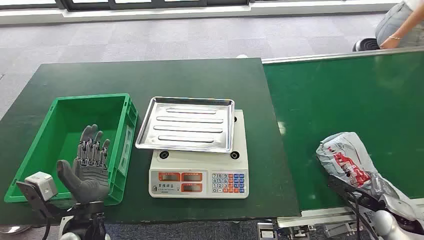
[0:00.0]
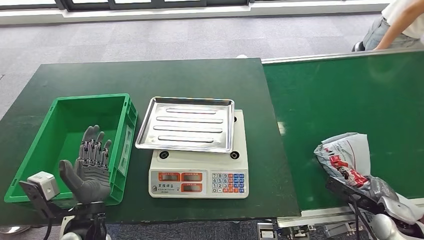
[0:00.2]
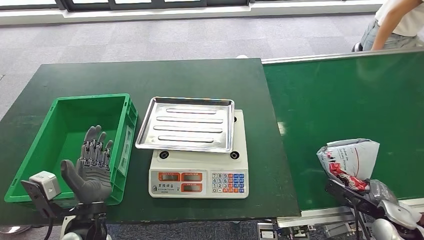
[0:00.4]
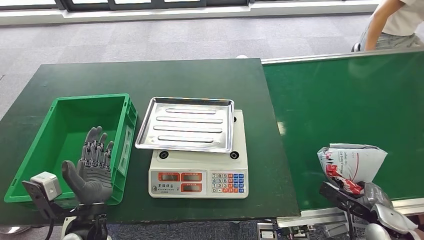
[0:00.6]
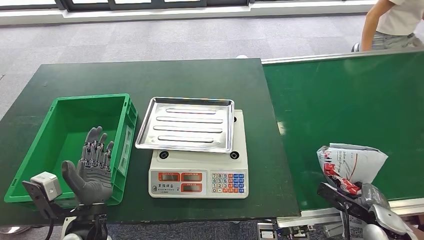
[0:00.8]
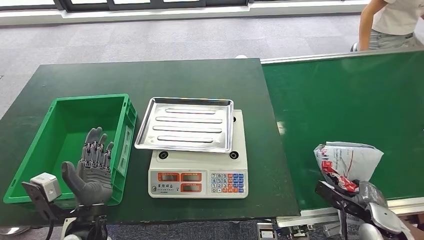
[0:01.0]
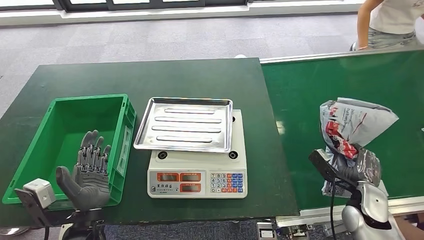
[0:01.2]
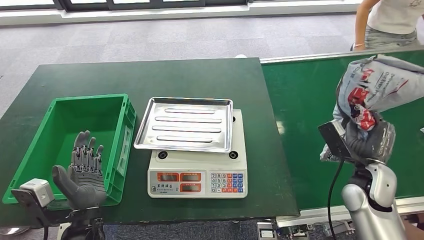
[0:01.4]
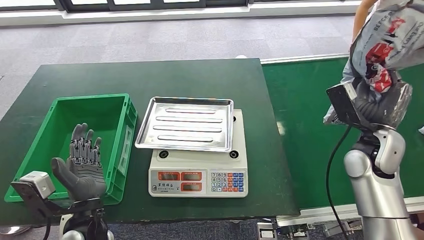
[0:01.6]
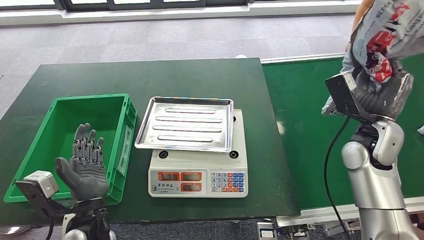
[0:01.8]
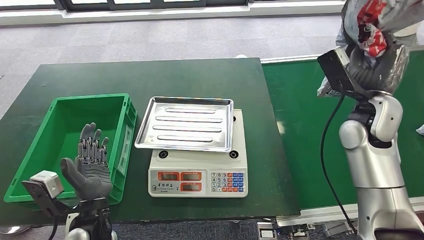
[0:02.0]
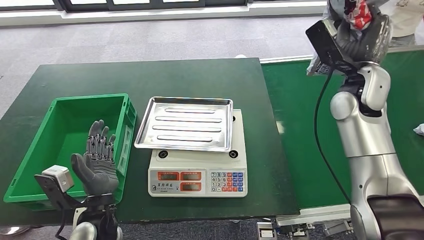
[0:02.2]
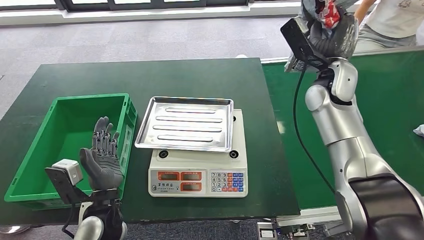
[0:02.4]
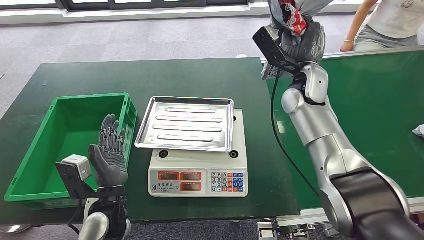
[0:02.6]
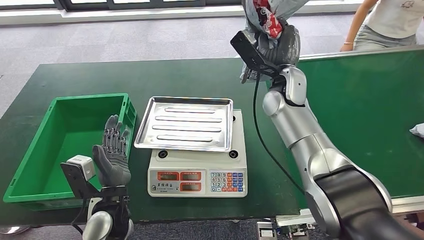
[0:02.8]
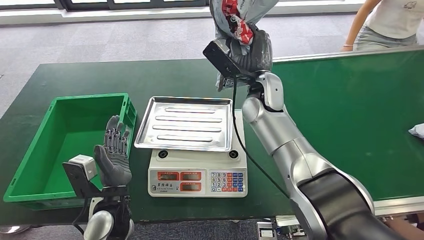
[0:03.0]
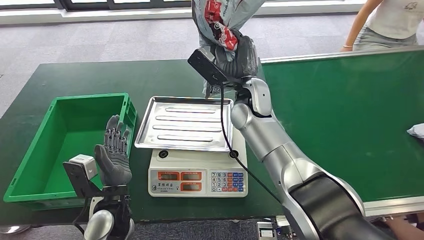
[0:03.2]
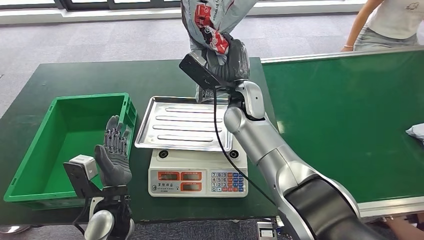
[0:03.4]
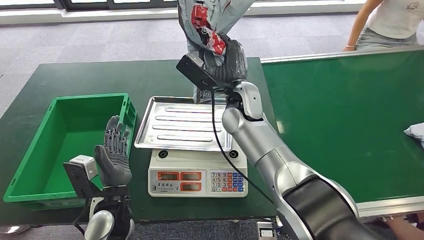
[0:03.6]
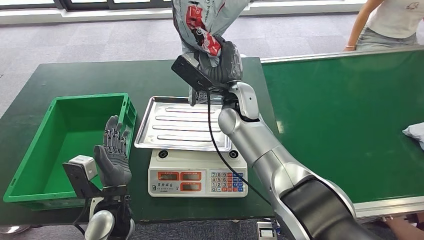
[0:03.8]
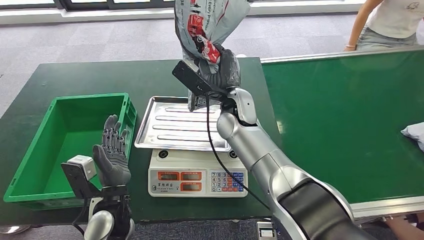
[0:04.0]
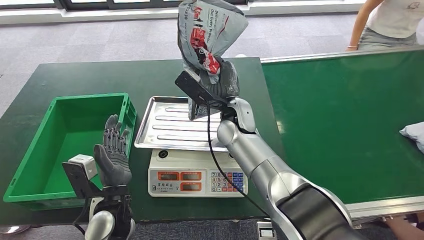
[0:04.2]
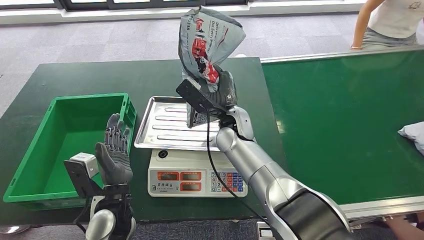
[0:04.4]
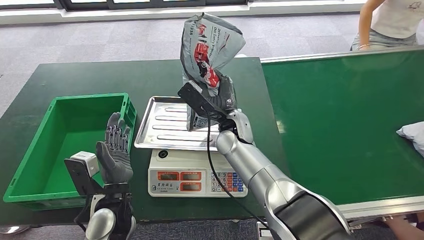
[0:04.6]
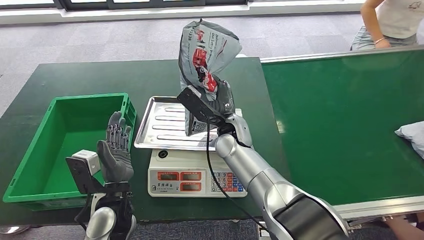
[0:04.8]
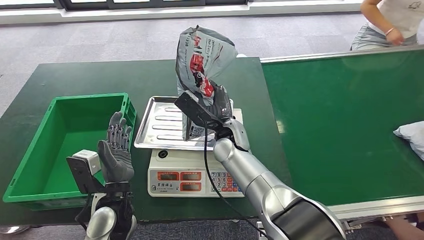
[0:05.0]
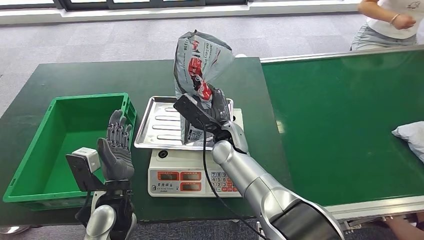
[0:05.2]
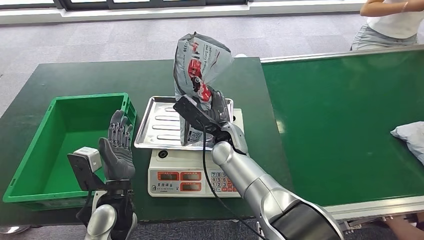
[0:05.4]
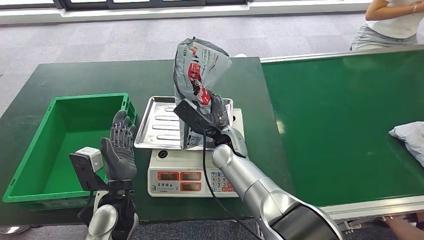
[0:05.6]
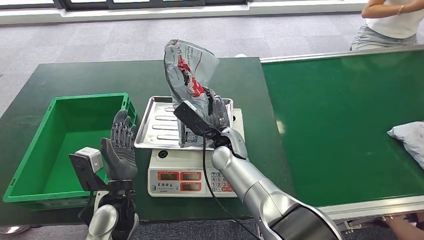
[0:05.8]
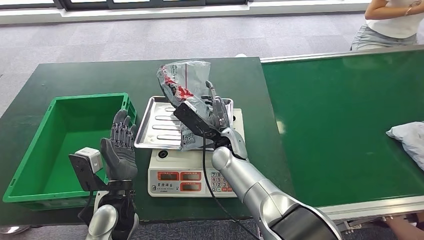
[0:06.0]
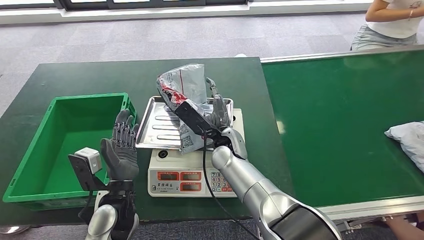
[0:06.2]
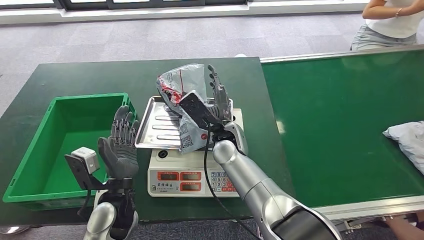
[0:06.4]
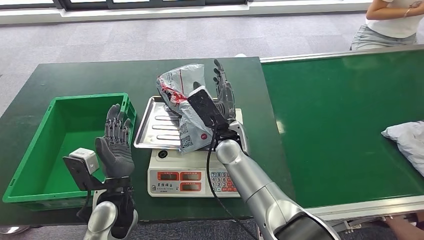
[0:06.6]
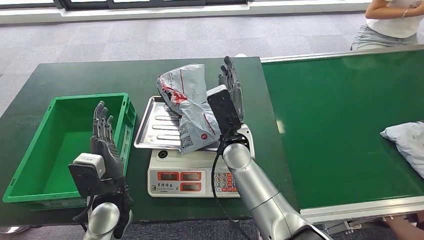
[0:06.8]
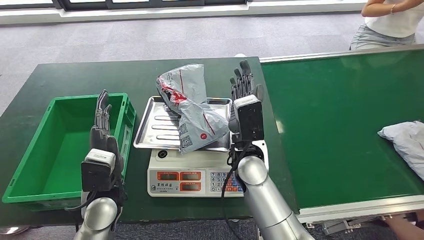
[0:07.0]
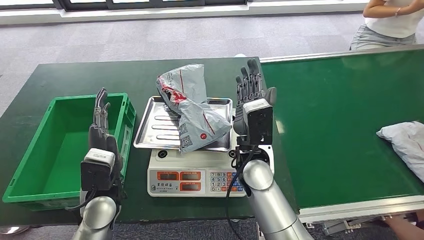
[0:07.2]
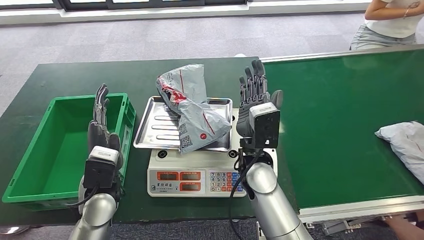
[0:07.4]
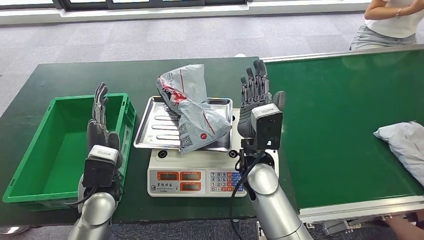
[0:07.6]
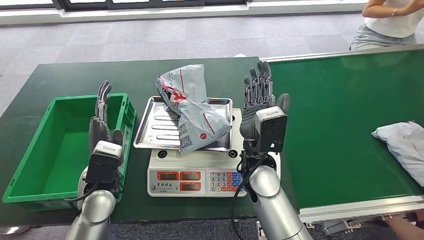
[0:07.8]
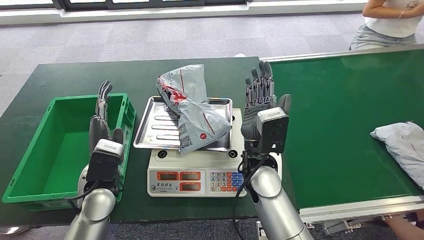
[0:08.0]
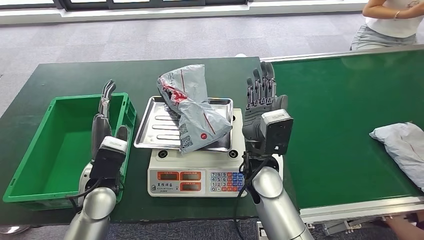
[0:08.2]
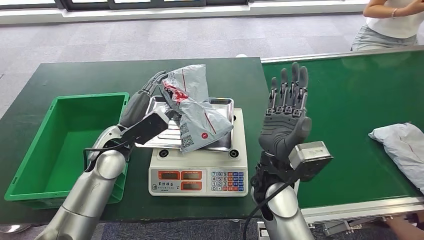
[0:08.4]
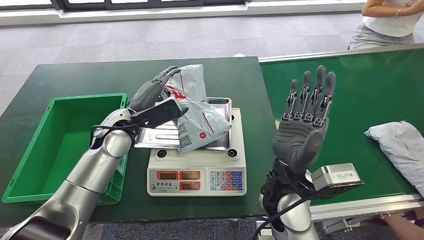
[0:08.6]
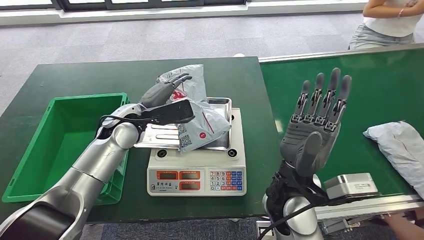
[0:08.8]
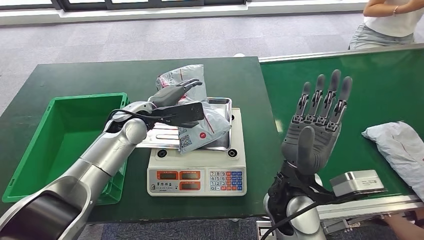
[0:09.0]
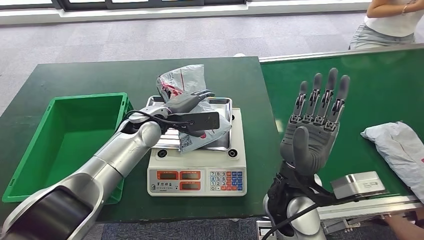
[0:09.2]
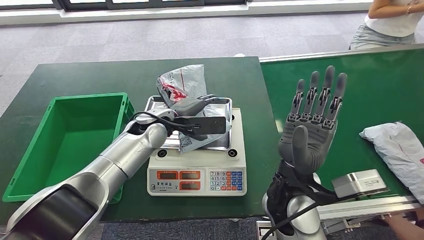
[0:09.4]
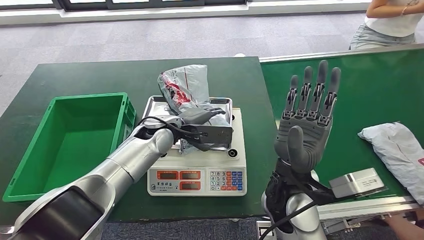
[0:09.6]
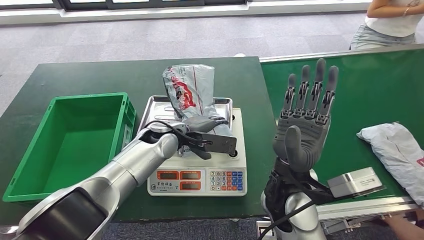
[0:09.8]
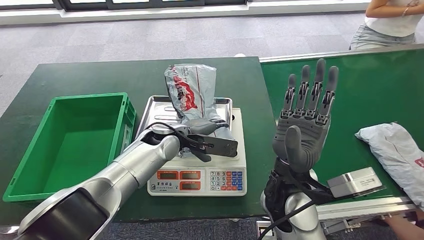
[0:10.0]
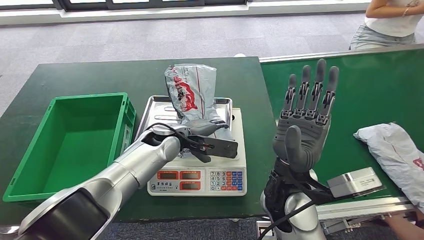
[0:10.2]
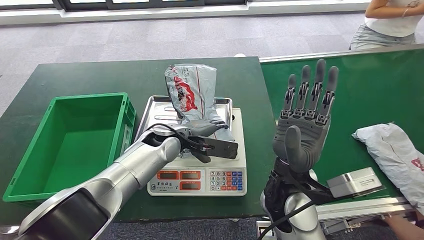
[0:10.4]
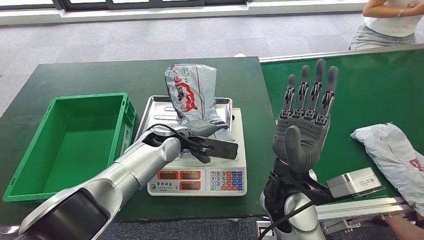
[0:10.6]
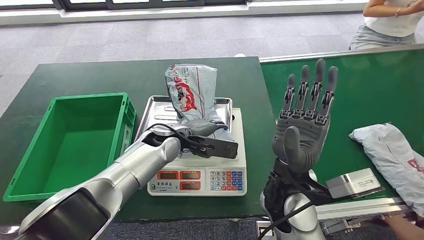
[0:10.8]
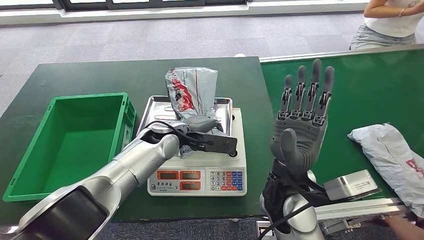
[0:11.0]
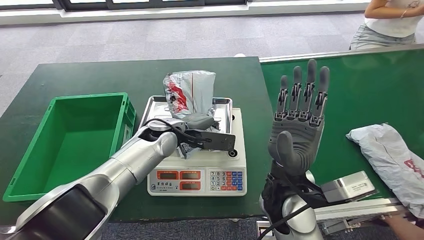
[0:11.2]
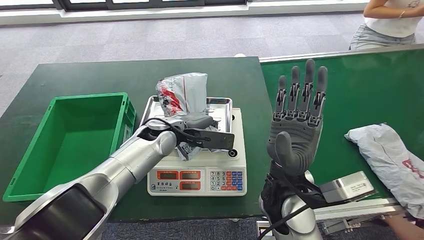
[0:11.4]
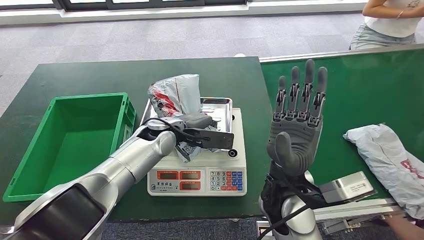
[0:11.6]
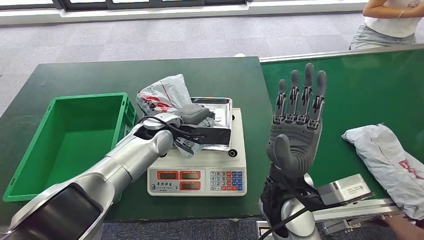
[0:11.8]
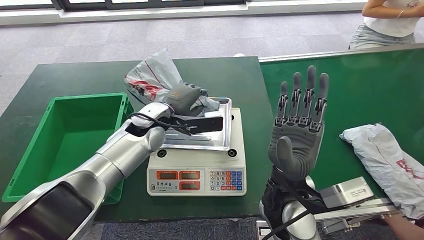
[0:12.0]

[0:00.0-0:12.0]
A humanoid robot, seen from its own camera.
Step, 0:00.0 to 0:01.4: Take the parcel off the conveyor belt.
Step, 0:01.6 to 0:07.0: Place the parcel onto the inbound machine.
0:04.4 to 0:06.0: The right hand is displaced downward by some 5 cm.
0:06.0 to 0:07.6: The left hand changes place by some 5 cm. The right hand shifts some 10 cm backward and upward.

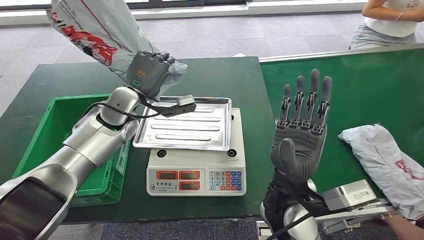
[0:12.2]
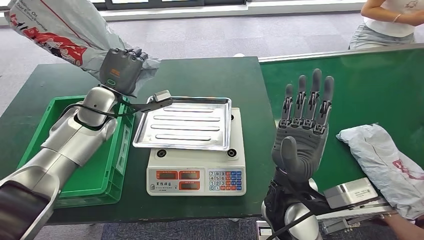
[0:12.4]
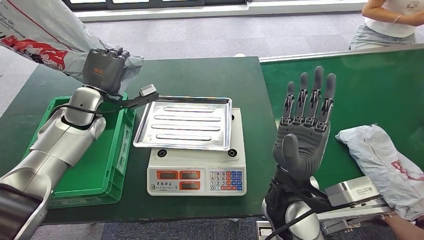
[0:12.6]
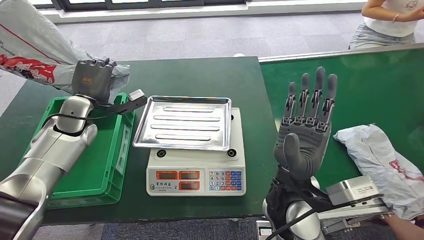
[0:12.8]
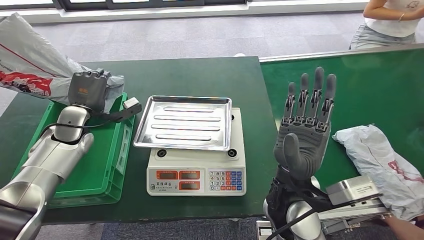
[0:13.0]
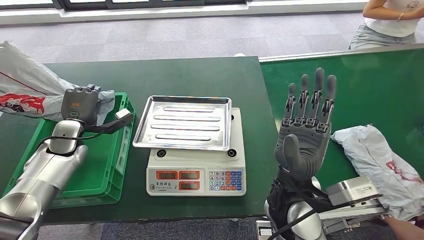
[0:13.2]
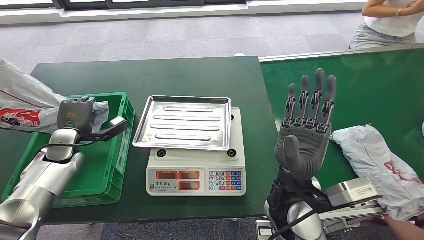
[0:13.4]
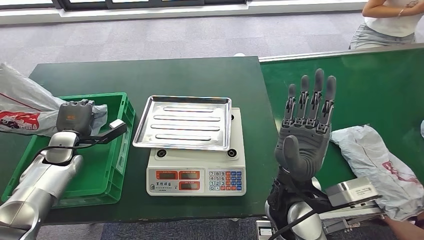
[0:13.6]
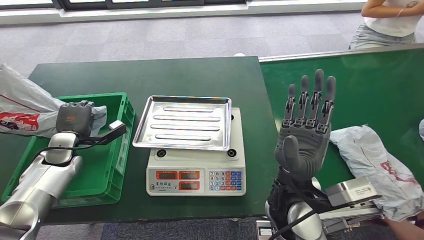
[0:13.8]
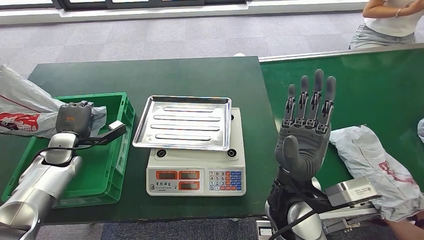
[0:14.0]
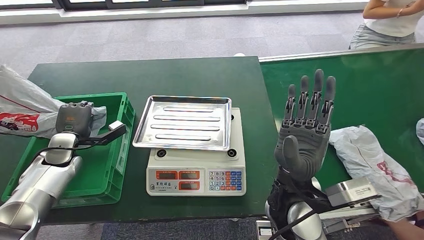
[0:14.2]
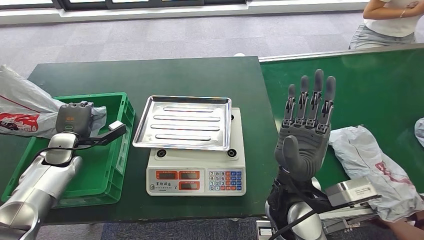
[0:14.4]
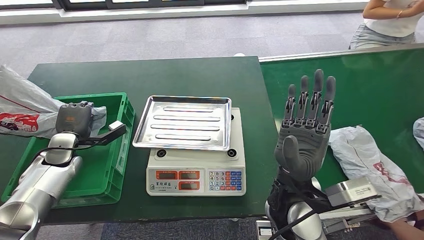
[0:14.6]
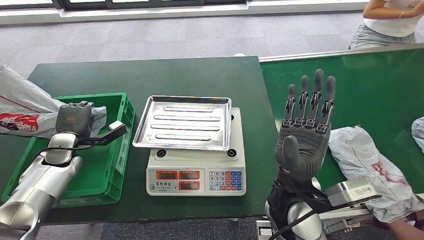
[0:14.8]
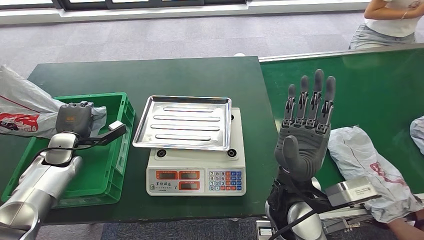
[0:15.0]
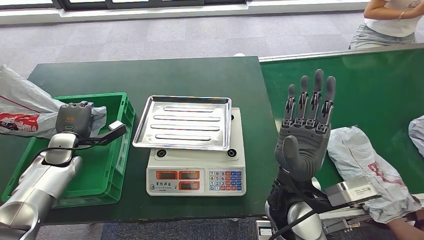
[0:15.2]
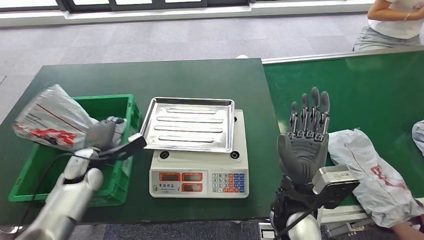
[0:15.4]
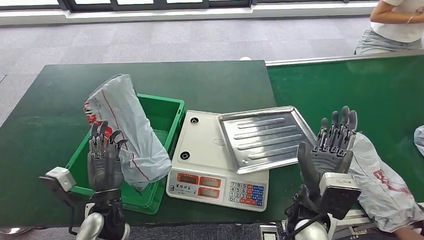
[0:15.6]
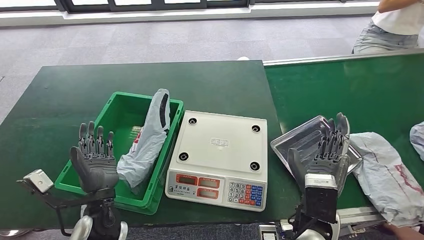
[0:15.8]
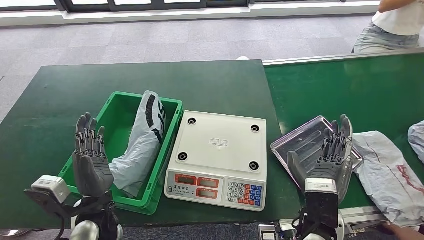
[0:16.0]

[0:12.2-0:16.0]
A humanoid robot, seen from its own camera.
Step, 0:12.6 to 0:16.0: Put the parcel inside the courier box.
0:13.4 to 0:14.8: The hands stay close to where they were, moving slightly.
